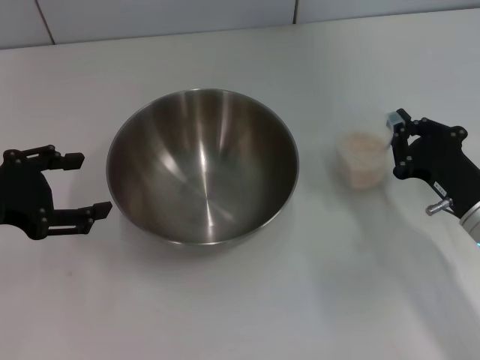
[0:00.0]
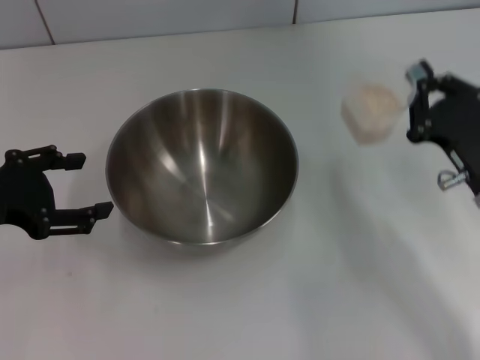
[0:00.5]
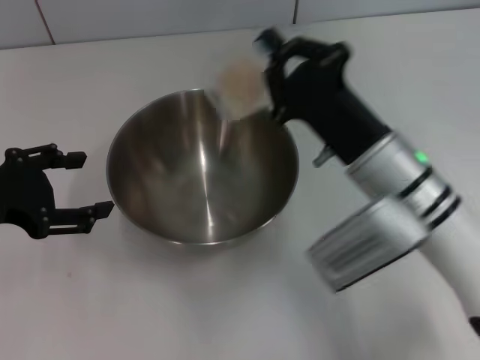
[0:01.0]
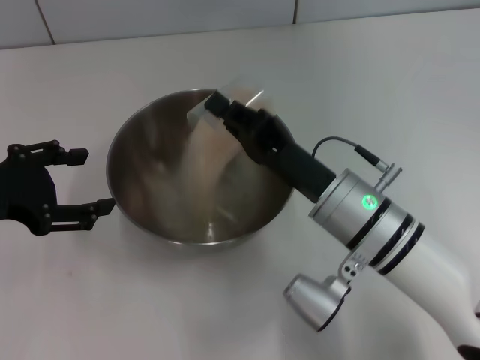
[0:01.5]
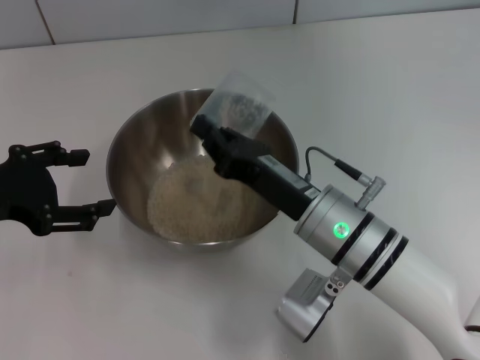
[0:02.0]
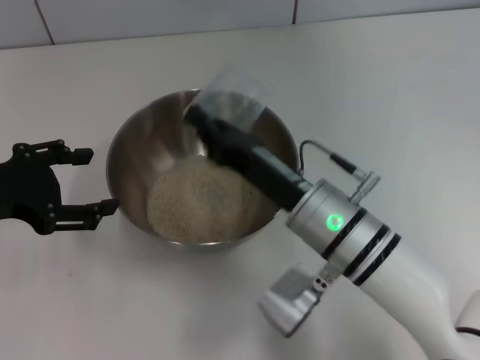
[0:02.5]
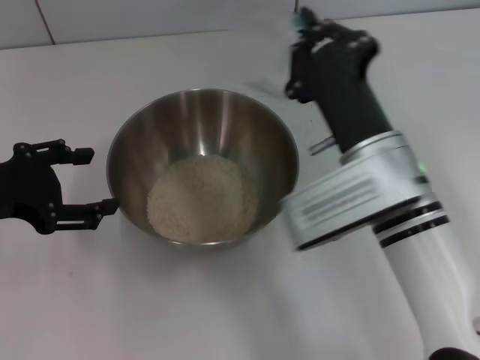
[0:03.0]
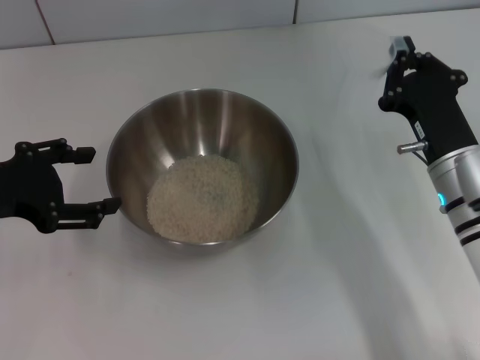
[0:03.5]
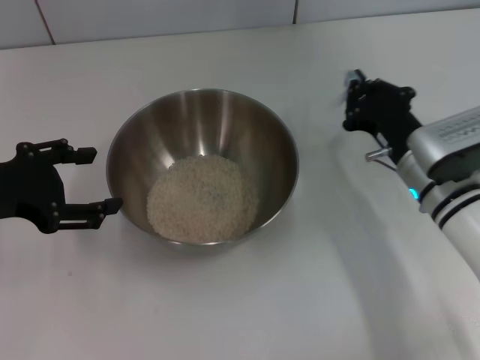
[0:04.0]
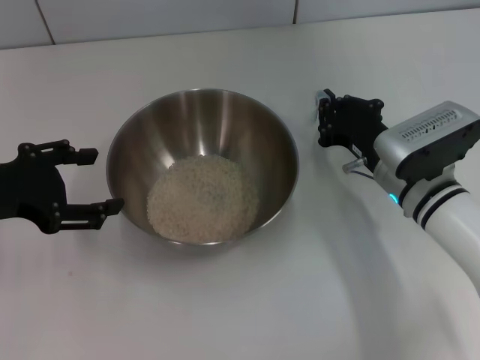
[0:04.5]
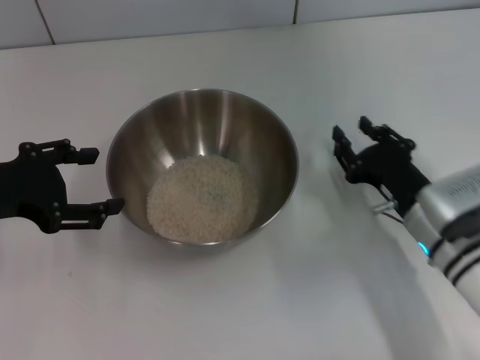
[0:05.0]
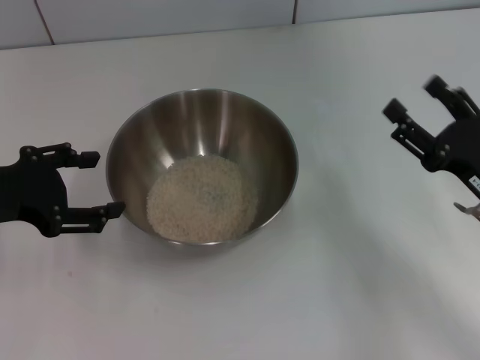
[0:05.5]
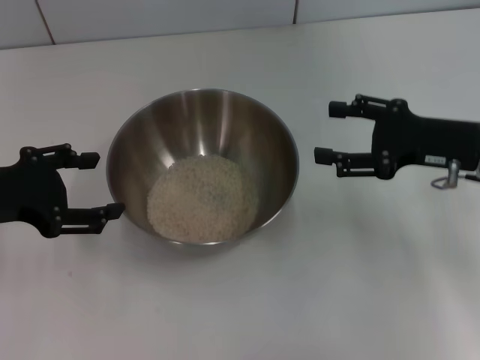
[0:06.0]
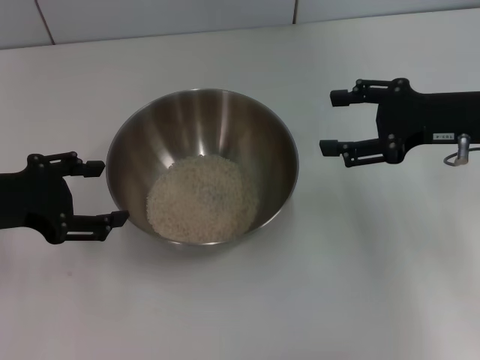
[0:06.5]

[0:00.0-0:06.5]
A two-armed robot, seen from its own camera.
Task of the whole recording: Place the bowl in the middle of the table with one hand and pour the rice from the grain cup into it with the other hand.
Step, 0:00.5 to 0:03.0: Pour the rice from the cup into the bowl with the right gripper.
Step, 0:03.5 to 0:05.0: Place the cup on the table with the right gripper.
0:00.0 to 0:02.0: The right gripper travels to the left by roughly 15 cm.
0:02.0 to 0:04.5: The right gripper heads to the right and forward, covering approximately 10 cm.
0:04.5 to 0:06.5: The right gripper moves upward and to the right, about 15 cm, and opens its fingers.

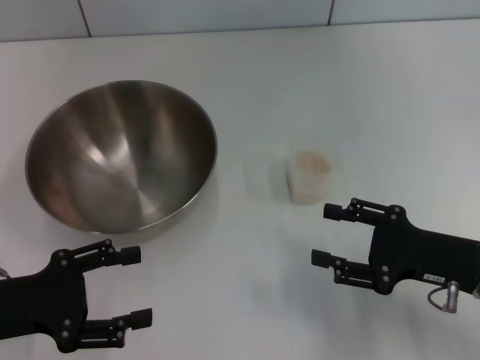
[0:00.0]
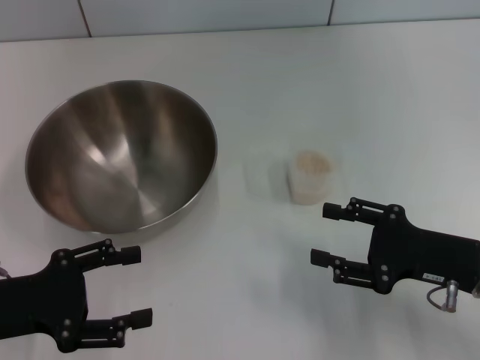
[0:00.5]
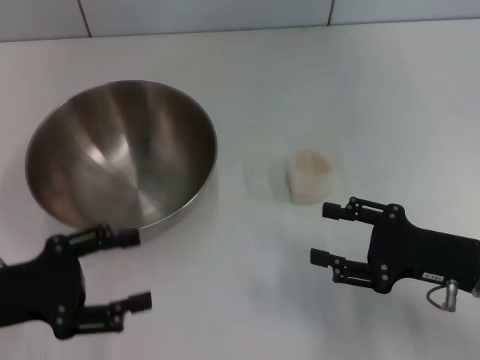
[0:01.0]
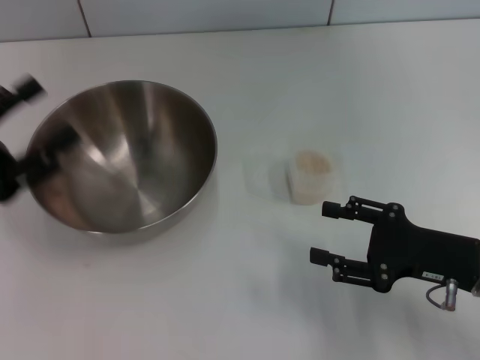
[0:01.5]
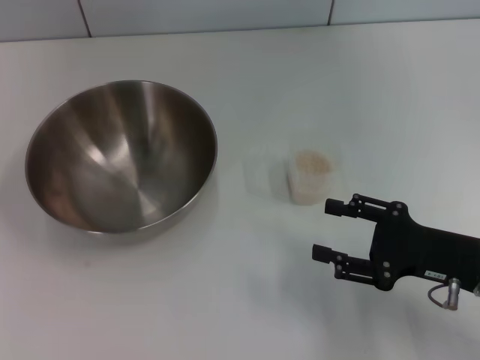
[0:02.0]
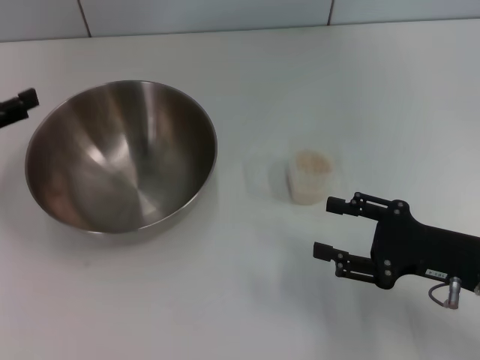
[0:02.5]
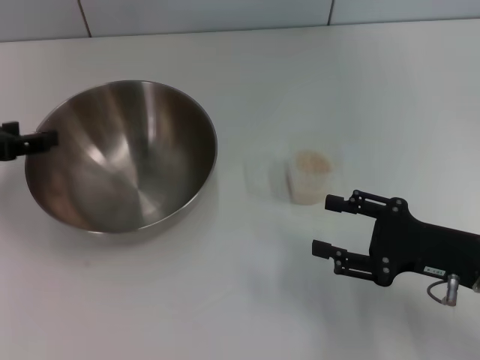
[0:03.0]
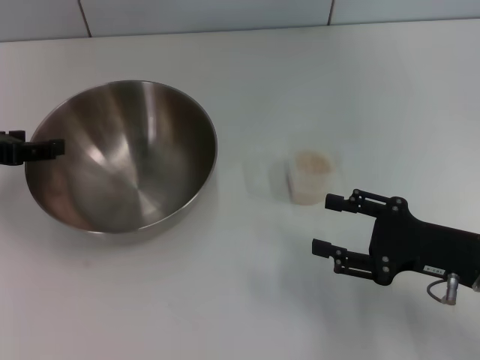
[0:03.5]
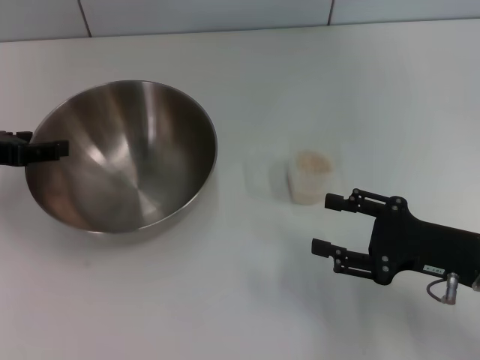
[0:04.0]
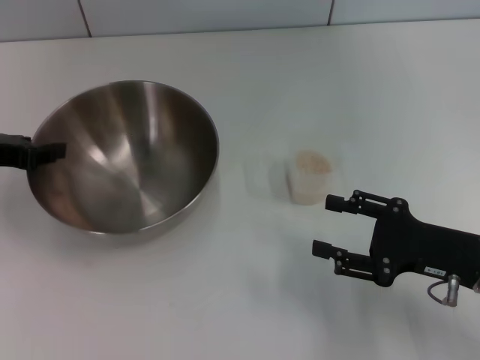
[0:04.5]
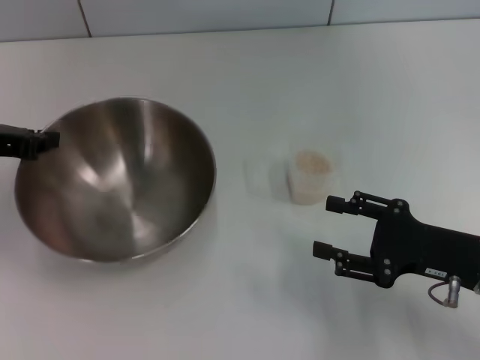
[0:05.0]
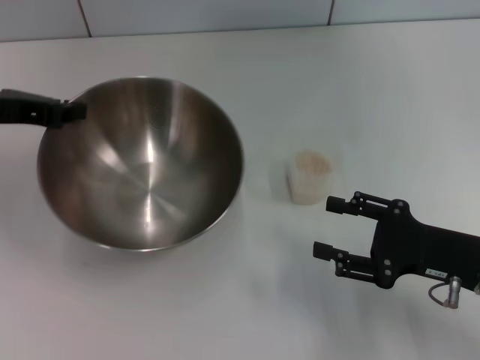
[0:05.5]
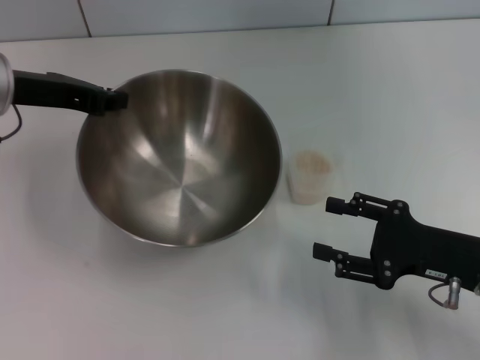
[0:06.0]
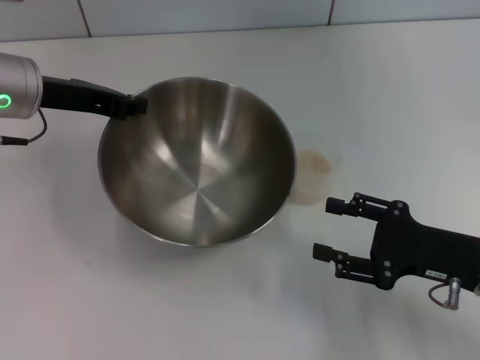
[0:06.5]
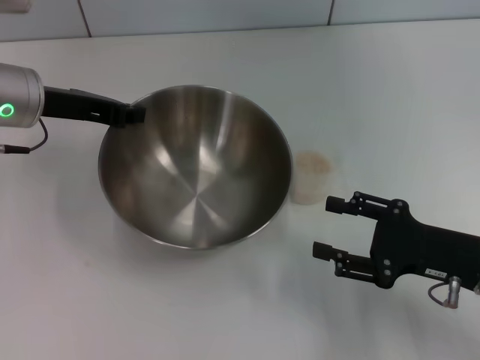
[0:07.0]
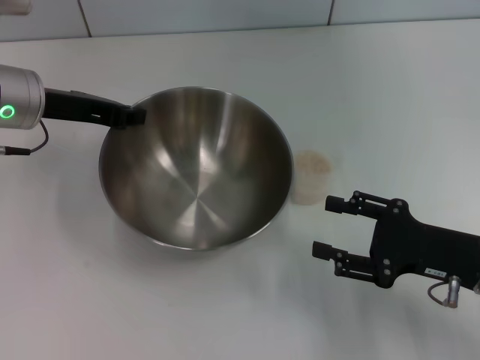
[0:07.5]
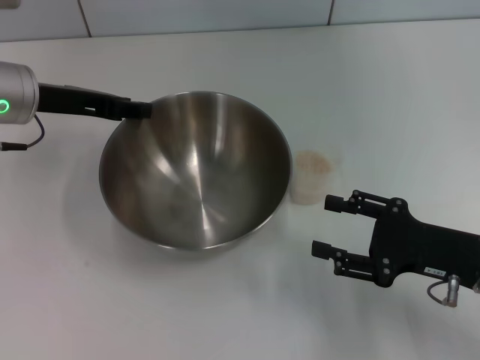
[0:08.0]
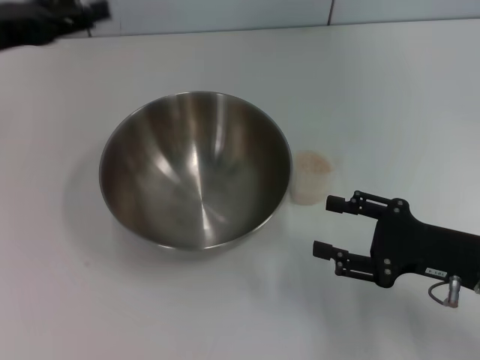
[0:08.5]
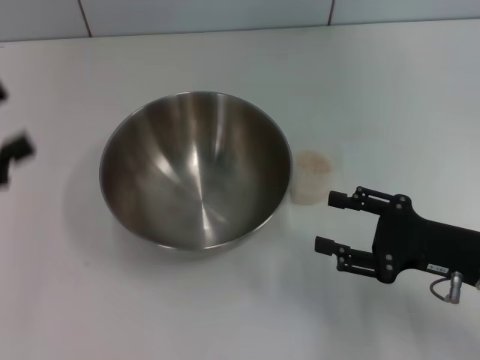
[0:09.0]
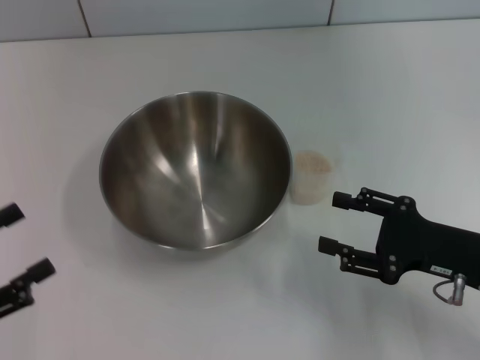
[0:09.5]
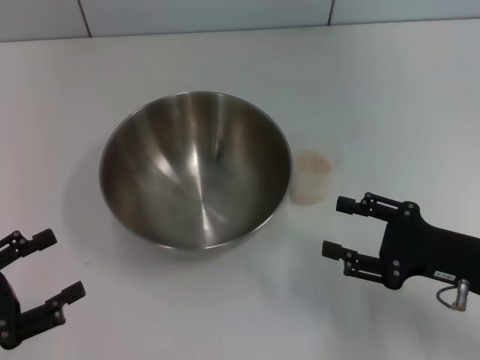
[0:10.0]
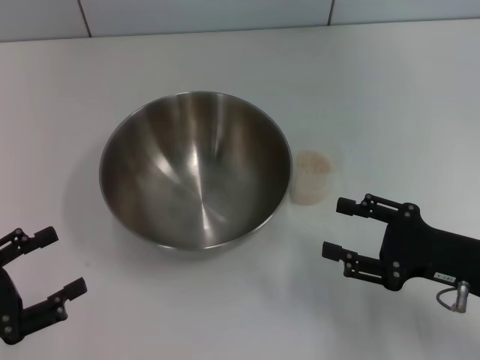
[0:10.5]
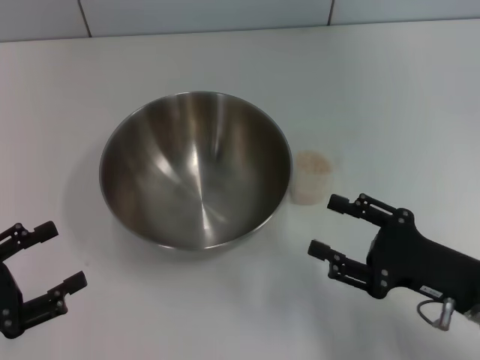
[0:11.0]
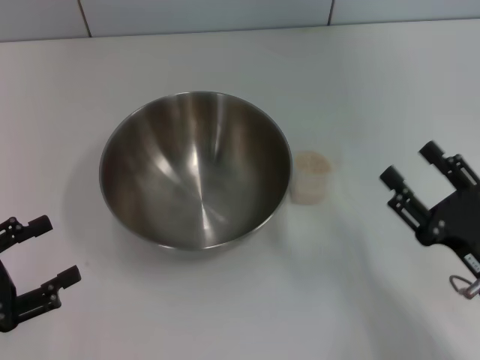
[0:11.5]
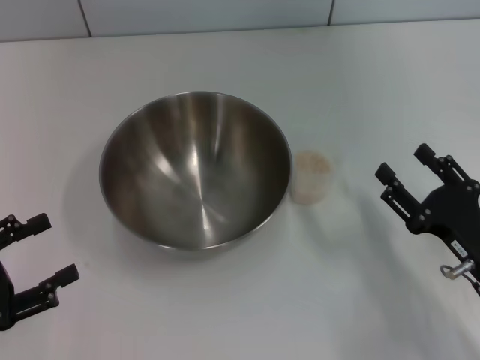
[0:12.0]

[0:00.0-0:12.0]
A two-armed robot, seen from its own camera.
Task of the whole recording: Place the bowl in the middle of the table with one hand and pour the rice from the grain cup into it with the other hand.
Step, 0:00.0 to 0:05.0: Pick up the bowl with the left gripper.
Step, 0:05.5 to 0:08.0: Place the bowl in the center of view with the left gripper.
0:00.0 to 0:02.0: The left gripper is displaced forward and to the left by some 10 cm.
0:02.0 to 0:04.0: The left gripper is displaced forward by some 5 cm.
0:04.0 to 0:06.0: The left gripper travels to the right by approximately 10 cm, and closes up.
0:06.0 to 0:08.0: The grippers stay close to where they were, moving slightly.
0:08.0 to 0:10.0: The left gripper is displaced backward, to the left and downward by some 25 cm, and opens up.

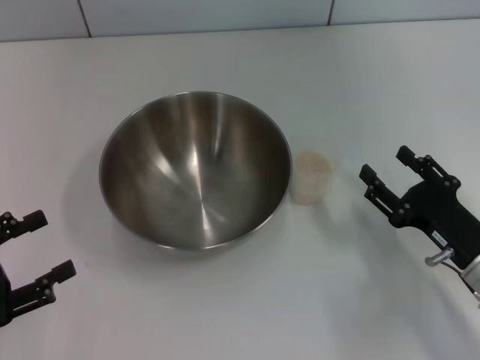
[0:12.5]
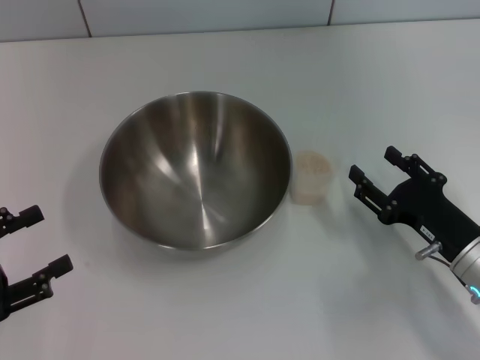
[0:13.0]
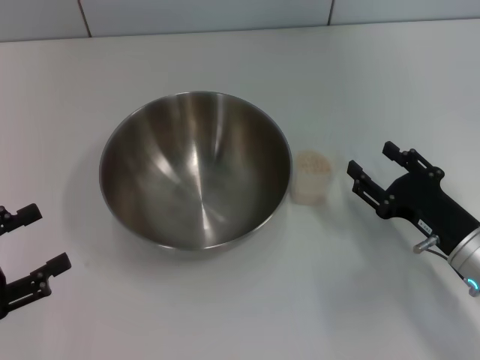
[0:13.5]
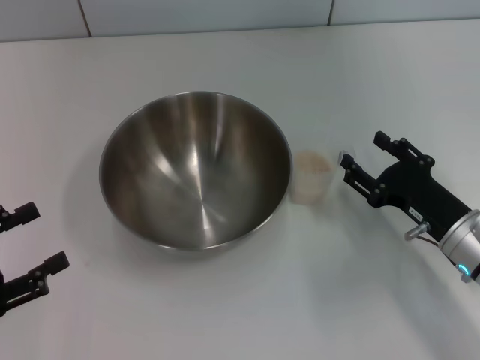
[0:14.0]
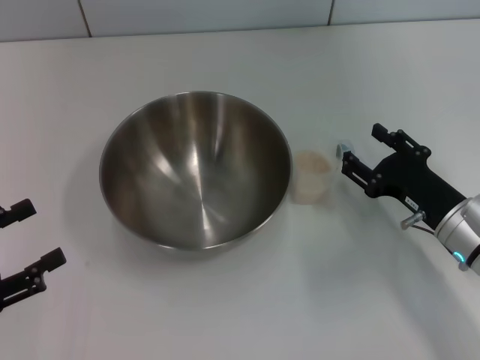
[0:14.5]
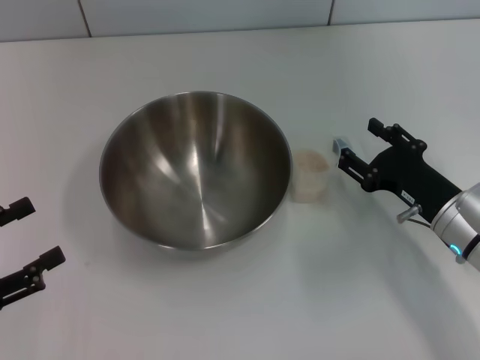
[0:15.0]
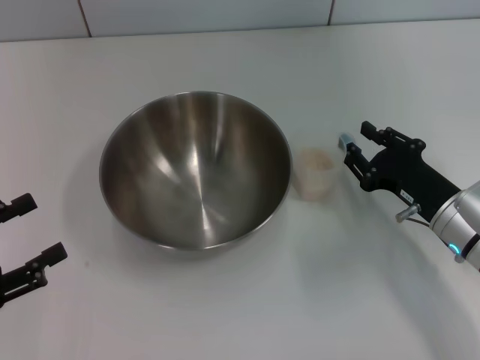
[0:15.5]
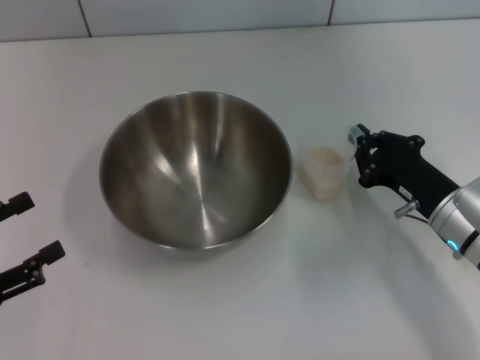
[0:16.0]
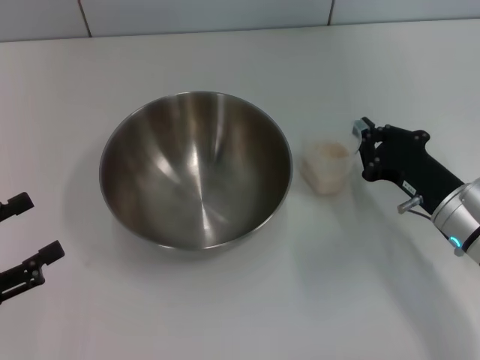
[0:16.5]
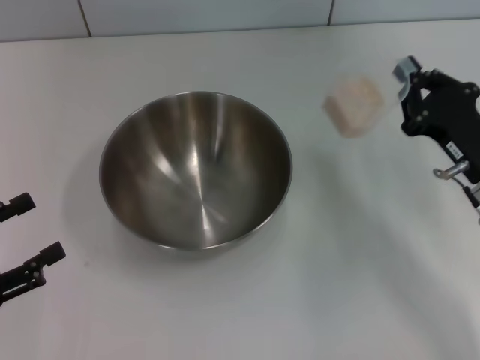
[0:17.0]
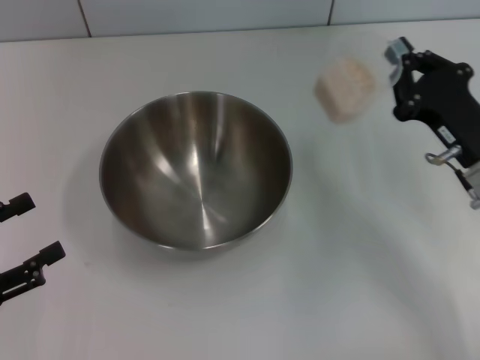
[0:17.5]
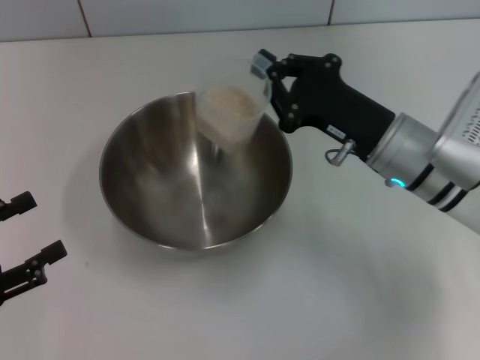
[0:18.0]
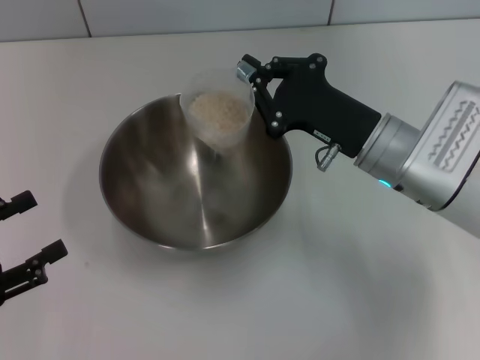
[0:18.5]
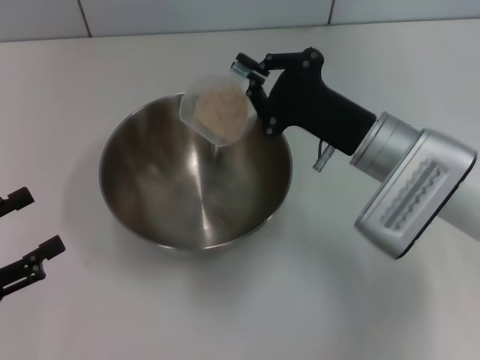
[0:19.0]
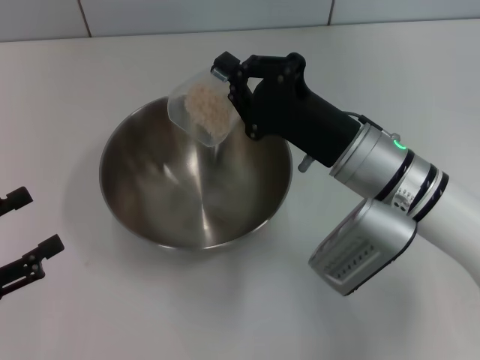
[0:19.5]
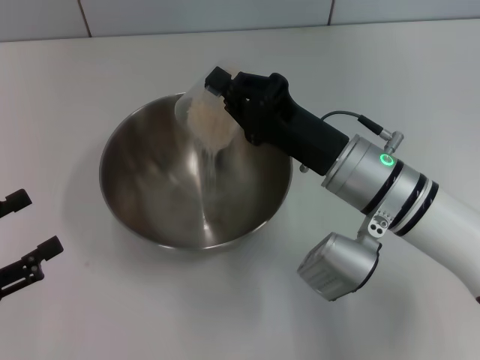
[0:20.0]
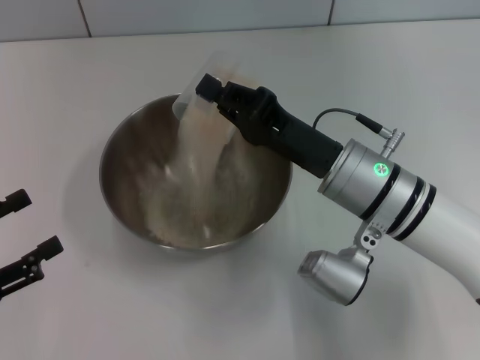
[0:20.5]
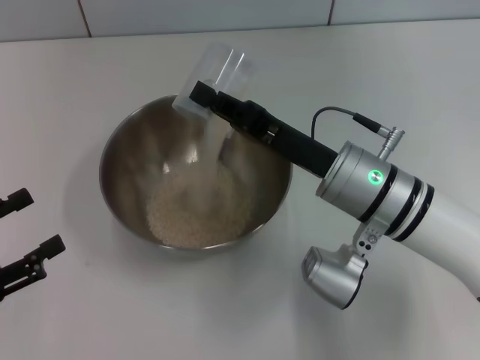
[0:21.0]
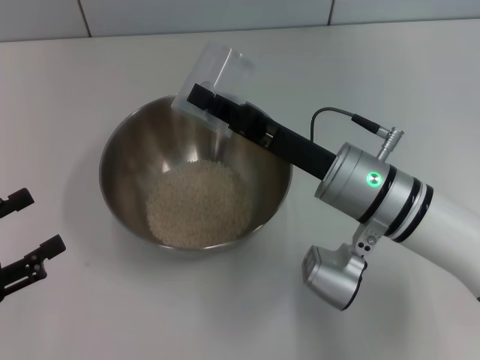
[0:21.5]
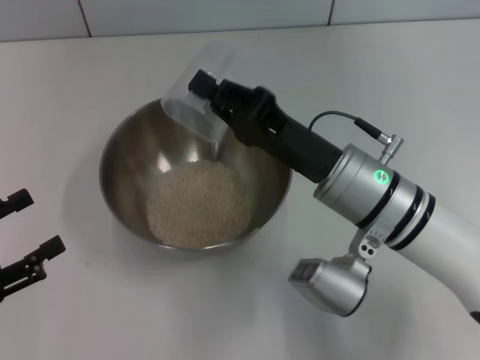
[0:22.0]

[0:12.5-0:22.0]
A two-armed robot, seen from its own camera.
Task of the whole recording: Place the bowl in the middle of the table with one hand and pour the rice from the grain cup into it with the other hand.
Step, 0:12.5 to 0:17.0: Pick up the cup with rice in it with the right gripper.
0:12.5 to 0:14.5: The right gripper ends up approximately 5 cm from where it was.
0:14.5 to 0:16.5: The right gripper closes up.
0:16.5 to 0:18.0: The right gripper is displaced to the left and upward by about 10 cm.
